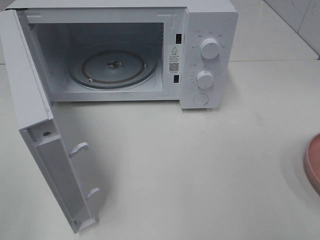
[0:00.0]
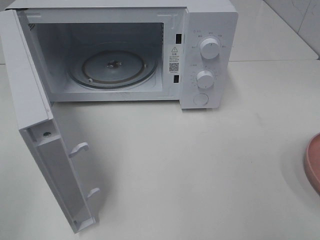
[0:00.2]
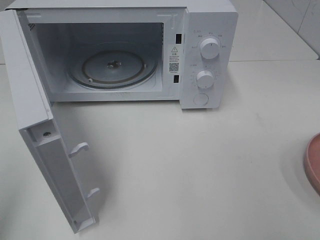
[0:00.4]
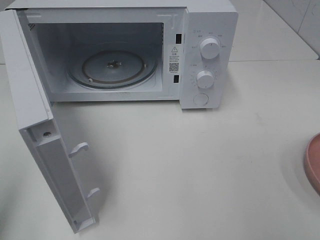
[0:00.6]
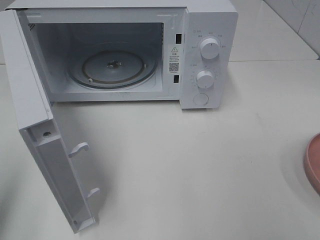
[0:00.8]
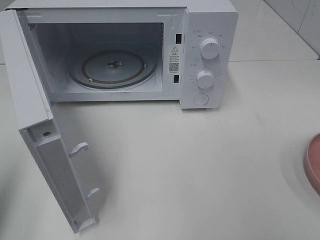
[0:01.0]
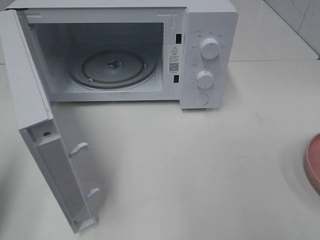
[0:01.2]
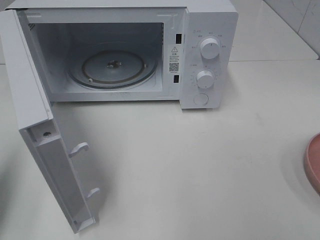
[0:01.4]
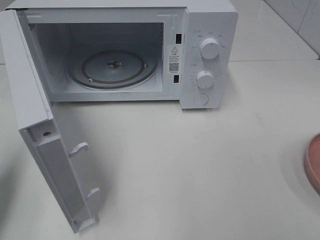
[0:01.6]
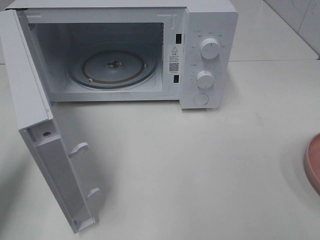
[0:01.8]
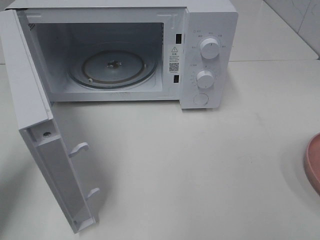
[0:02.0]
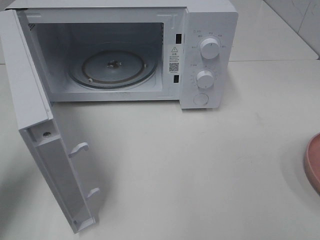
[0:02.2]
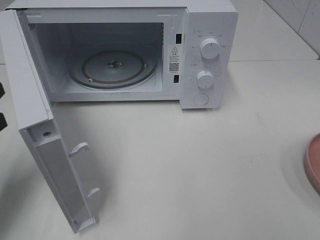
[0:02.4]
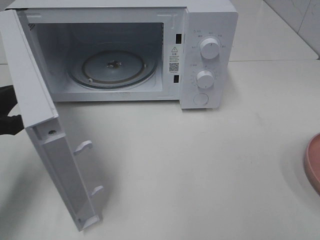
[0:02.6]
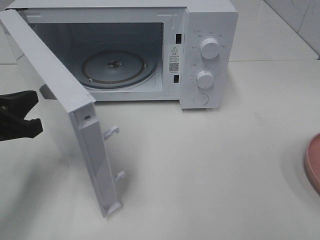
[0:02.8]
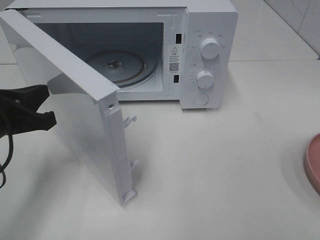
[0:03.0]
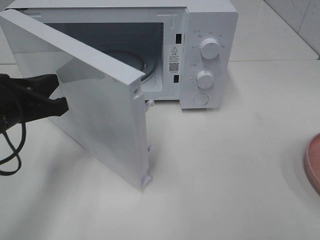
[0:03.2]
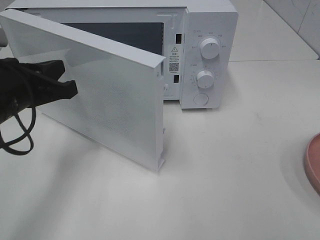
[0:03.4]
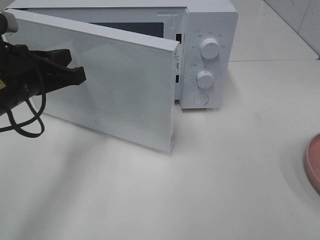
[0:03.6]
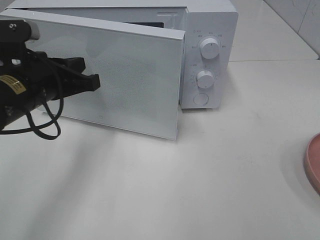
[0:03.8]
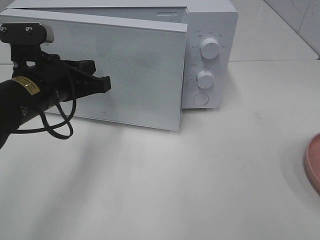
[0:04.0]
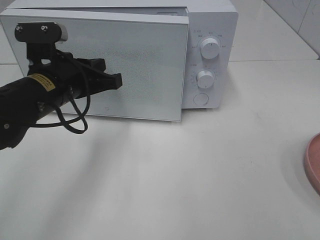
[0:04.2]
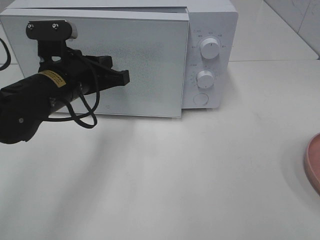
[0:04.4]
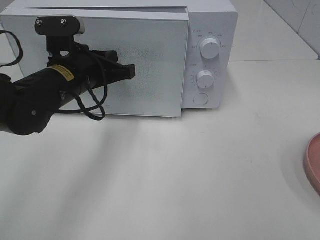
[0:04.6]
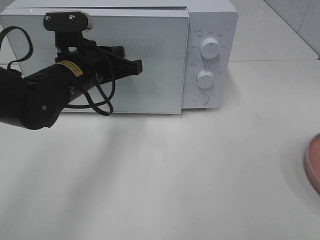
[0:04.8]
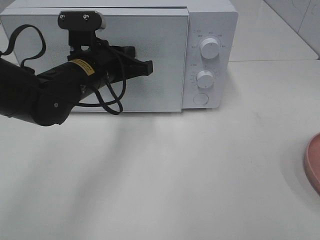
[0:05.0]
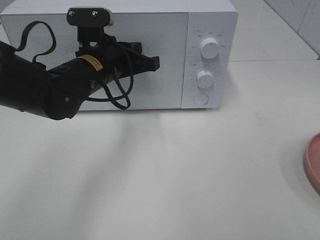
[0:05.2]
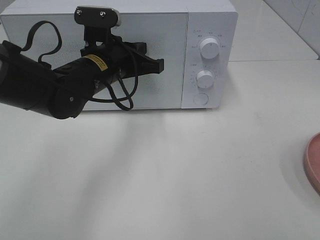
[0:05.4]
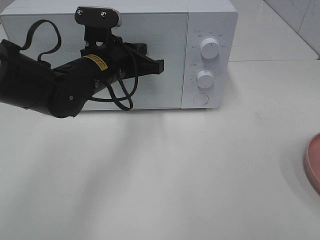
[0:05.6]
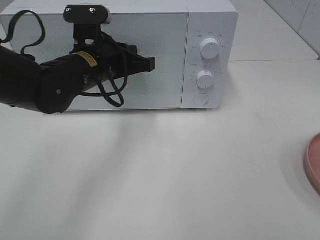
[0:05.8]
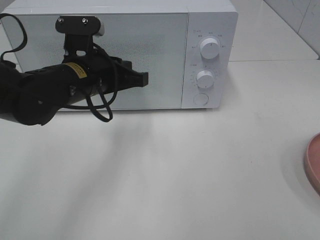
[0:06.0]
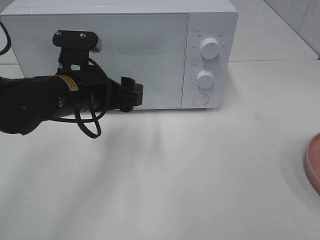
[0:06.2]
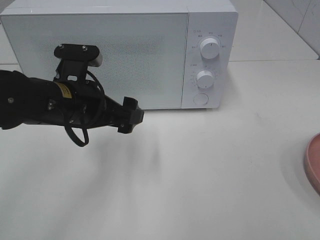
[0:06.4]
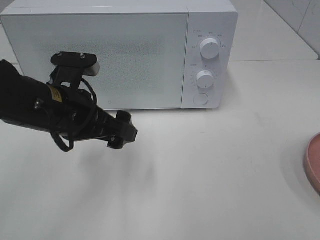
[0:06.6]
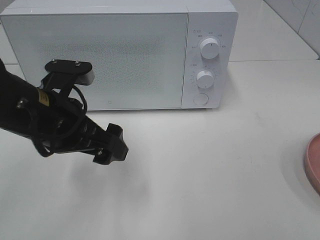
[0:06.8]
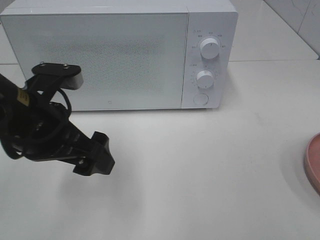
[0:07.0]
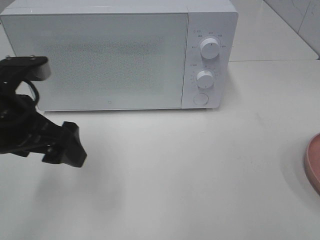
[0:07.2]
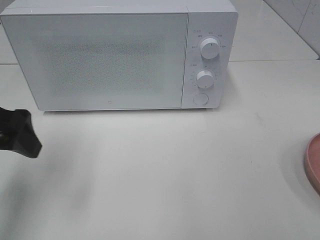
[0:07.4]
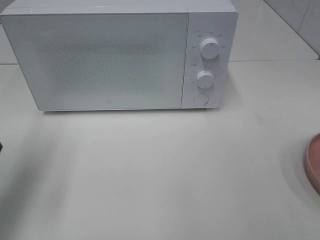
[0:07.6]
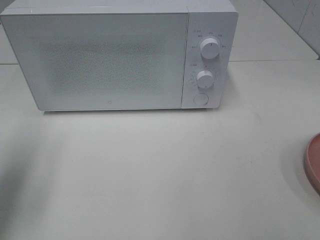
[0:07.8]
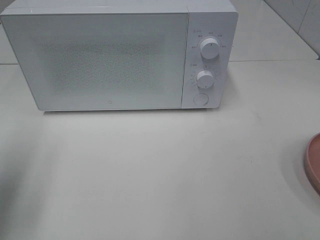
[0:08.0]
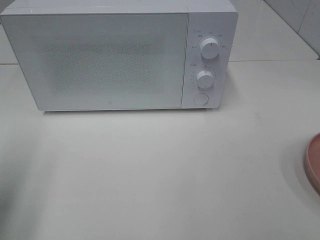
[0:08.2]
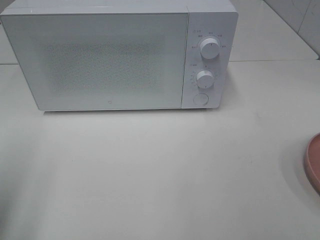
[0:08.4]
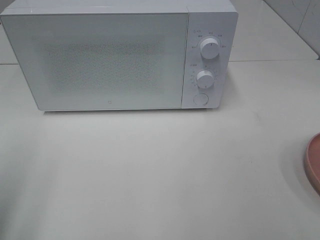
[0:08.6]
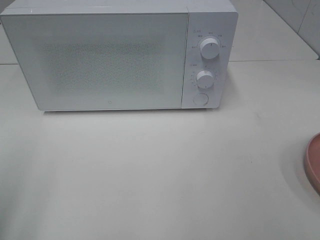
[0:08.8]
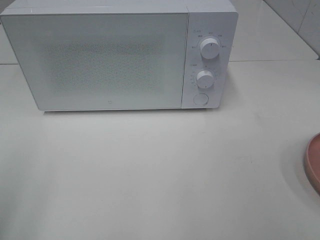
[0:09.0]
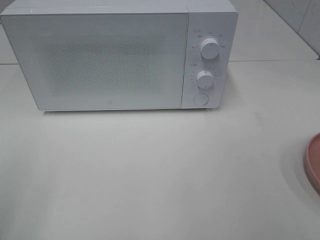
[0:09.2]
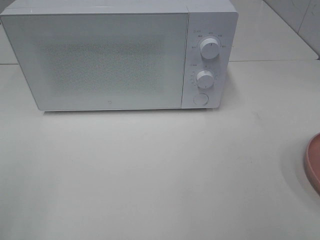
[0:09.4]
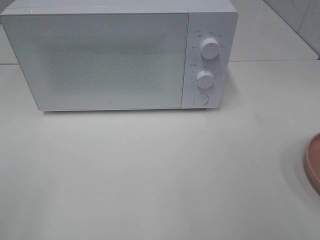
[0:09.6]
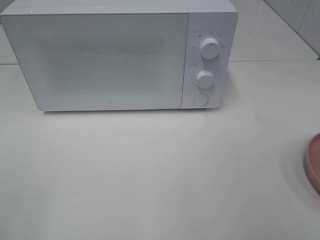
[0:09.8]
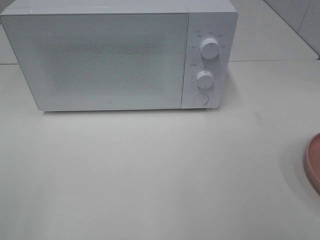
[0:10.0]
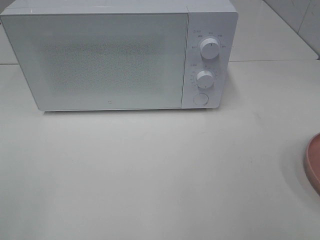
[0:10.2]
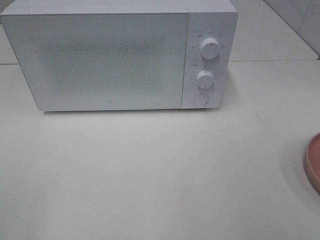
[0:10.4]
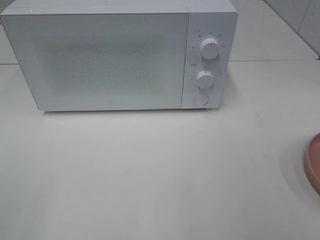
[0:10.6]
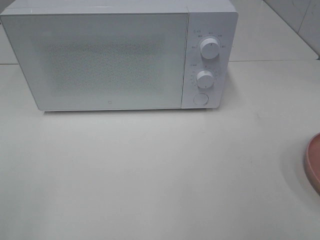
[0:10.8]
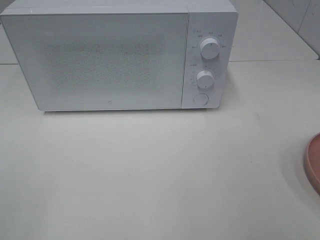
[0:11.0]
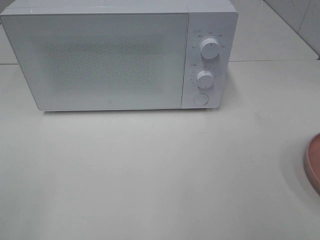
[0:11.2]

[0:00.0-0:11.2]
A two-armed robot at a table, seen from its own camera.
Task of the whole recording: Heat the burger.
Step, 0:00.0 to 0:06.0: Left hand: close the microwave door.
0:00.0 to 0:01.6: The left gripper goes roughly 15 cm forward and downward, and closes up.
0:01.6 to 0:03.2: The left gripper travels to the right, forward and downward by roughly 15 cm.
0:03.2 to 0:04.8: The left gripper shifts some 15 cm to the right and forward.
0:04.8 to 0:06.4: The left gripper heads backward, covering some 5 cm, and opens.
0:06.4 to 0:08.0: The left gripper travels to the left, backward and upward by some 25 cm.
0:08.0 to 0:09.6: The left gripper moves backward, some 20 cm.
0:09.6 to 0:11.2: Both grippers stay about where they are.

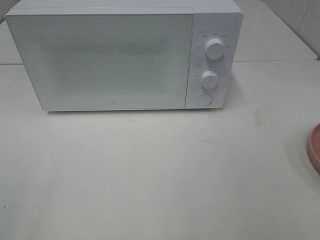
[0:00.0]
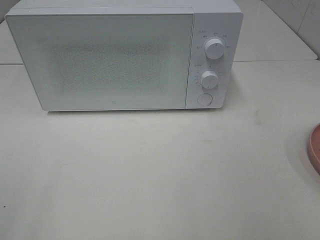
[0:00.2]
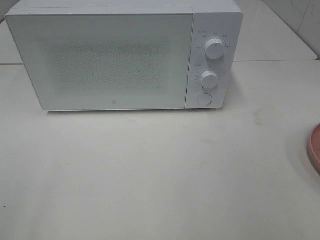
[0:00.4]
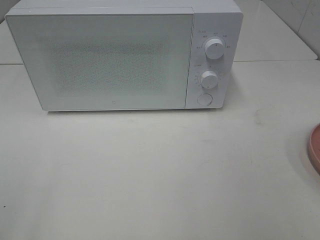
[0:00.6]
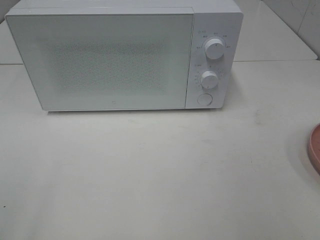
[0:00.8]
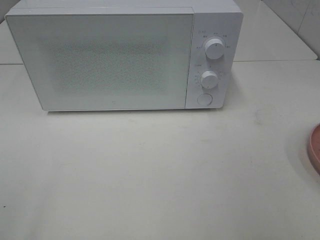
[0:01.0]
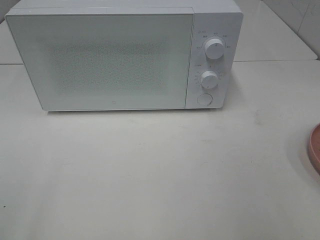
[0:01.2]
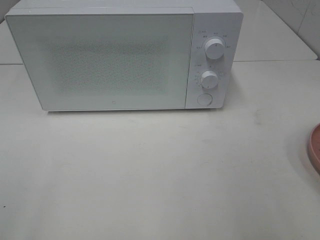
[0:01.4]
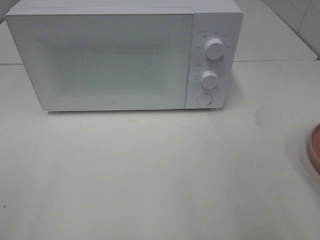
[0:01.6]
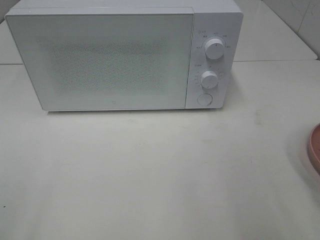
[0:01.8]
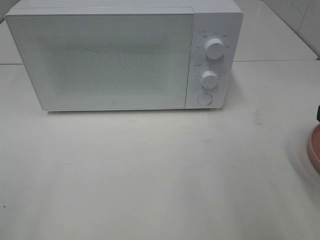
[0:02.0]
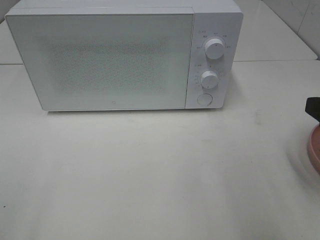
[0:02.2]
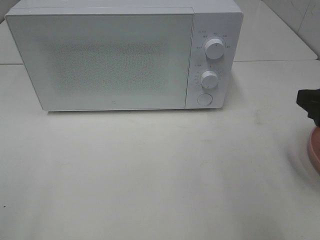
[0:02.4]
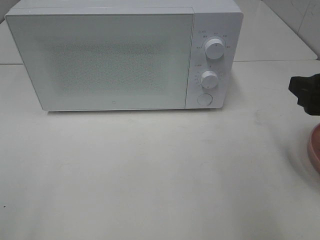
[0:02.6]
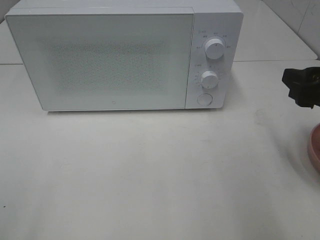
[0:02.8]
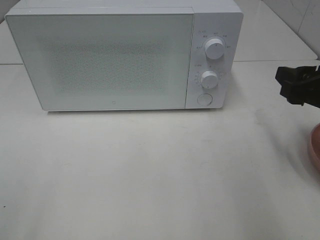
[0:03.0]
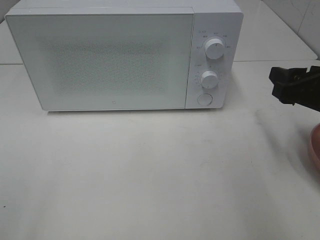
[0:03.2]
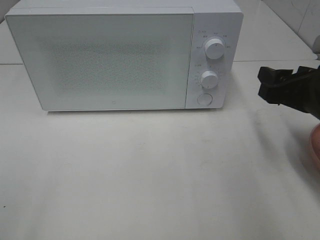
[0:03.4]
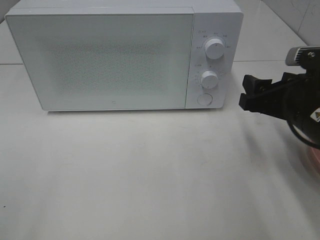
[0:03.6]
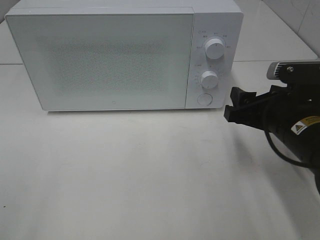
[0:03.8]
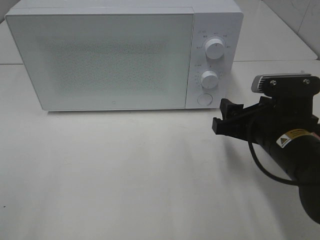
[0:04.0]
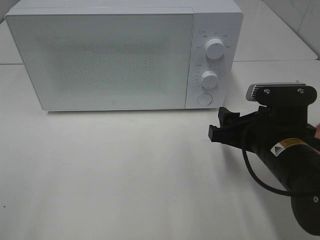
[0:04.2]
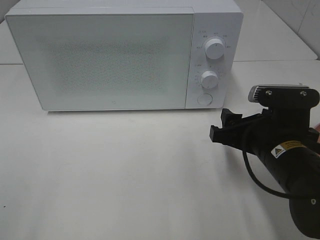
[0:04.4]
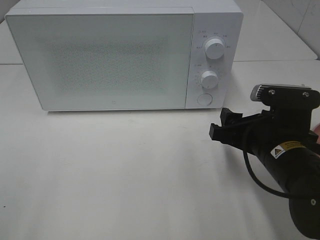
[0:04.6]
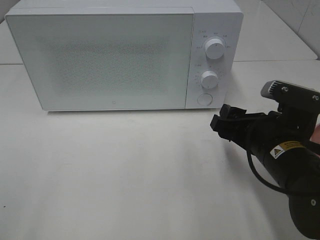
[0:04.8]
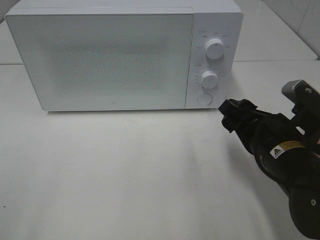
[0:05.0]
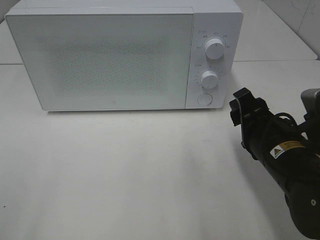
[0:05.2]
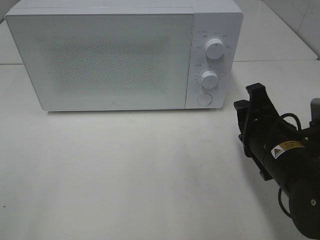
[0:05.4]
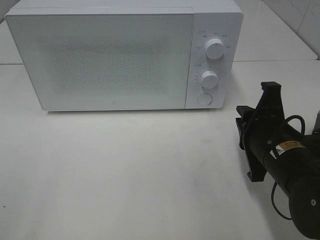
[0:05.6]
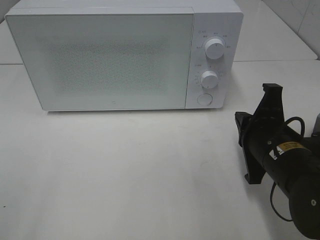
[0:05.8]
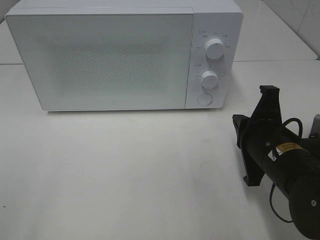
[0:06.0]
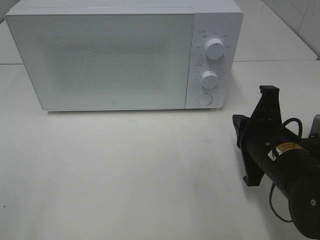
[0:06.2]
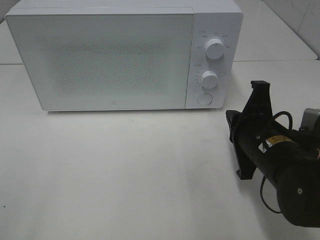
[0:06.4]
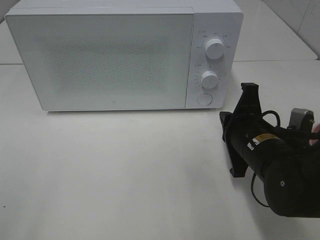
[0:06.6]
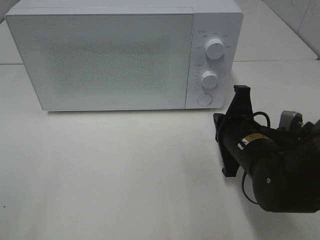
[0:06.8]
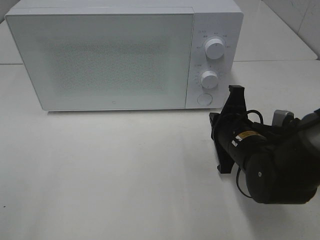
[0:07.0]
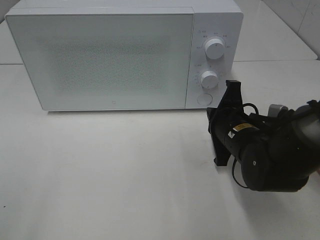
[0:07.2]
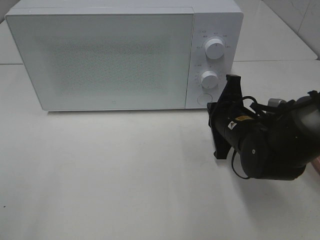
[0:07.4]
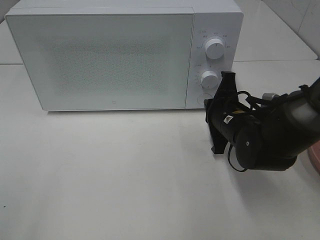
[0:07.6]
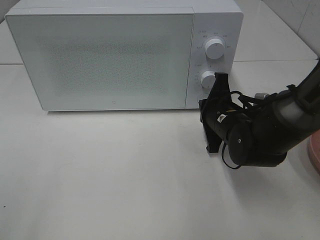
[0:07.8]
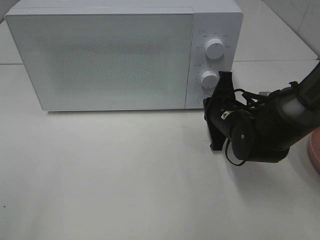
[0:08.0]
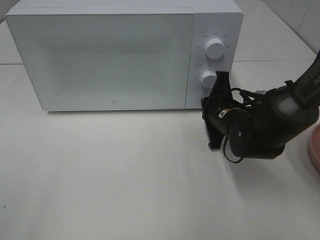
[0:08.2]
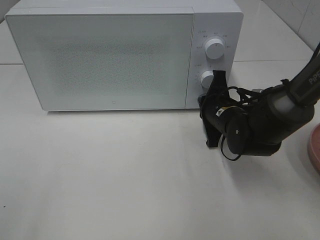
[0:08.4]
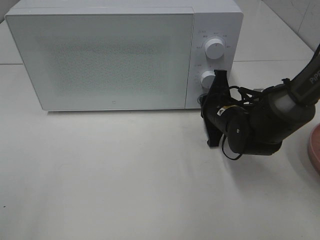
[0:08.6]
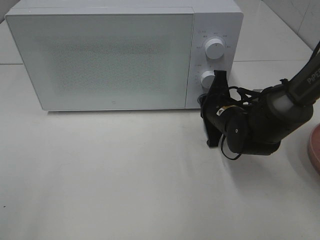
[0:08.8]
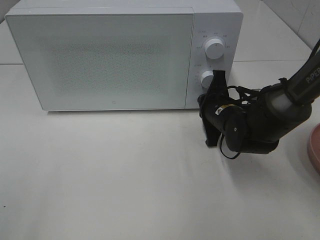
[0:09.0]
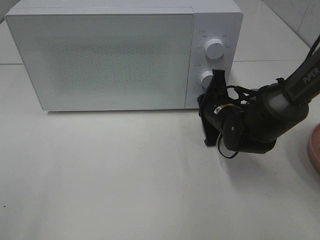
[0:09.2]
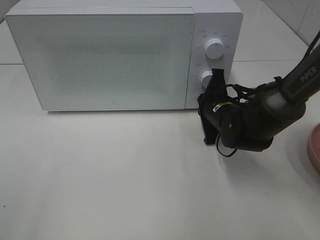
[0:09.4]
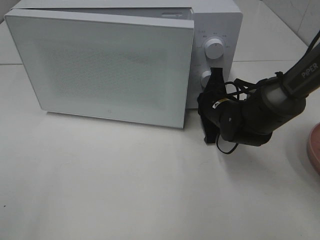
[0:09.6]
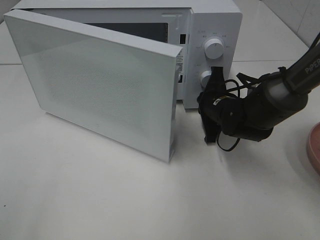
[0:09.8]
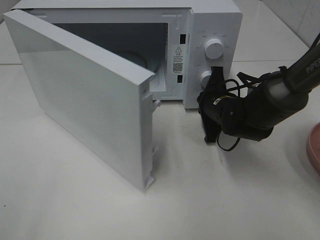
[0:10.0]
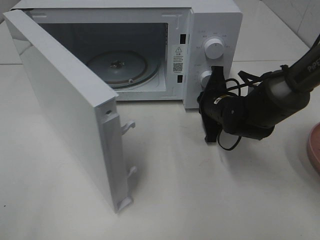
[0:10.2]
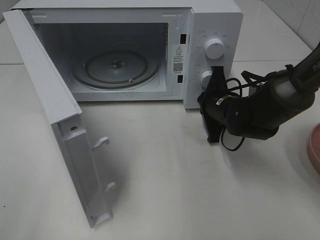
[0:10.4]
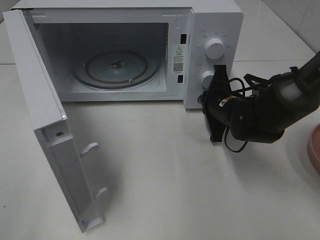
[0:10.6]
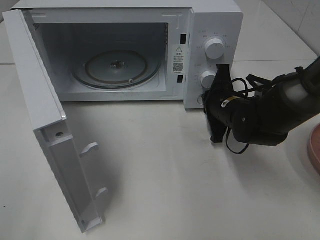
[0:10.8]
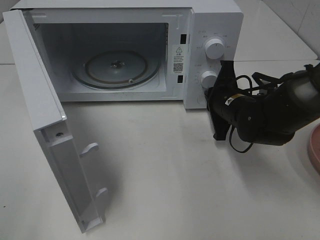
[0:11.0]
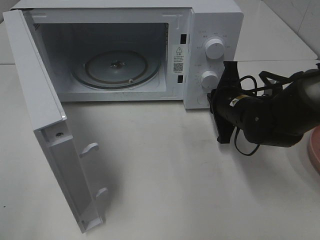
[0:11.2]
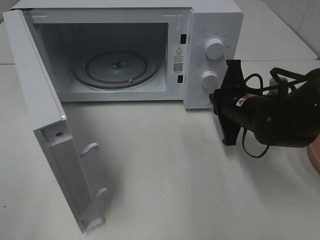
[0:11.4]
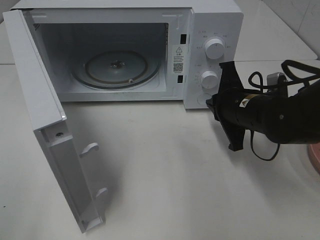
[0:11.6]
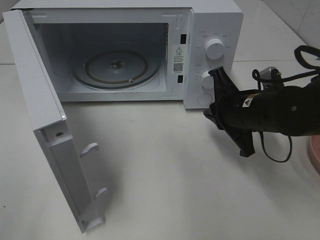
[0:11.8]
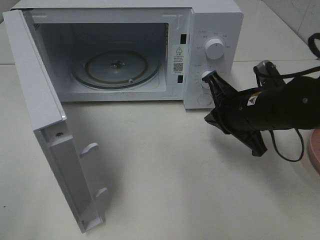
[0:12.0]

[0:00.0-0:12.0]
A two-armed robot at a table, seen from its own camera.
Task of the whole recording: Heat the burger.
Step, 0:00.0 to 0:11.2: Right hand: press the switch.
0:01.6 to 0:03.0: The right gripper goes approximately 15 cm forward and downward.
0:03.0 to 0:04.4: The right gripper shifts approximately 10 cm to the left and downward.
0:04.4 to 0:06.0: The right gripper closes its fingers.
0:06.0 to 0:07.6: The right gripper shifts roughly 10 cm forward.
0:07.6 to 0:09.0: The grippers move only a little.
0:10.4 to 0:12.0: The right gripper goes some 10 cm backward and upward.
